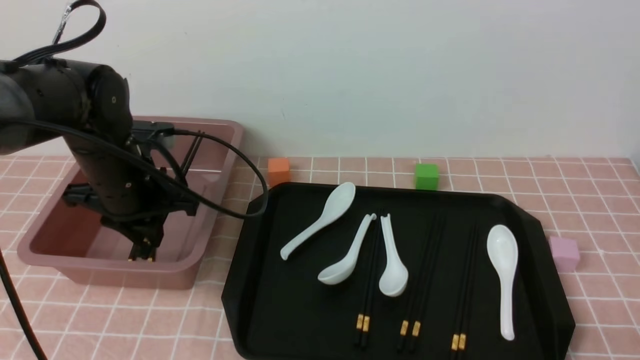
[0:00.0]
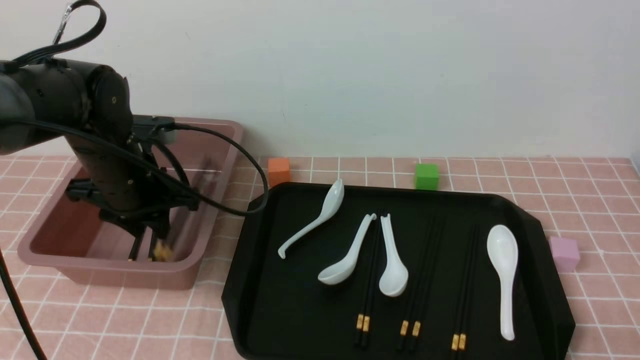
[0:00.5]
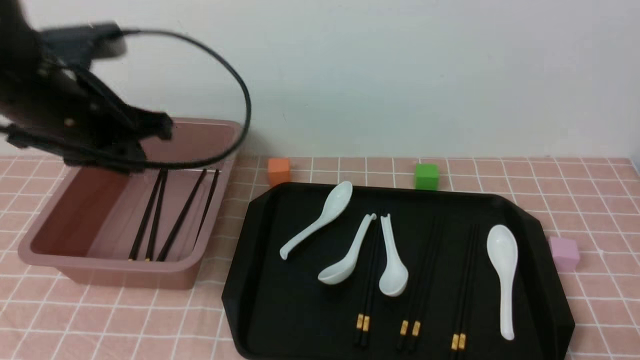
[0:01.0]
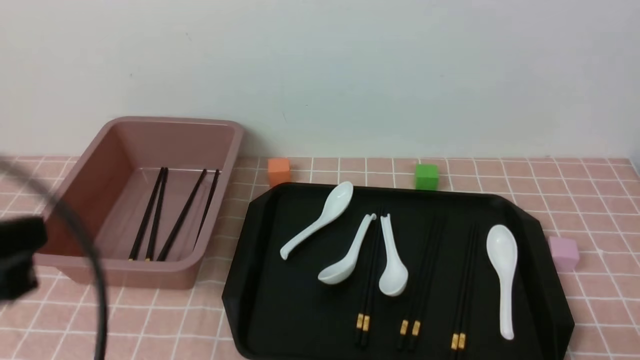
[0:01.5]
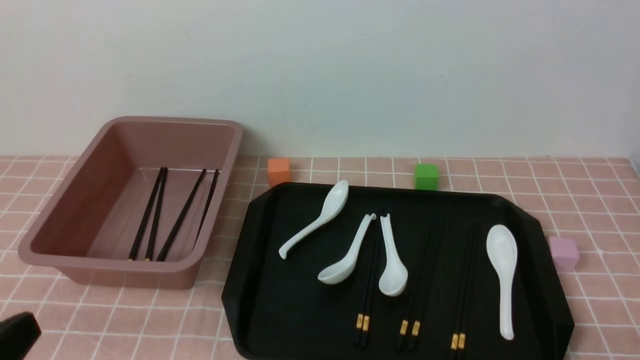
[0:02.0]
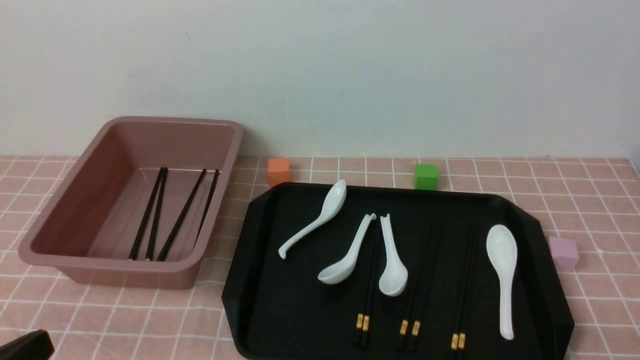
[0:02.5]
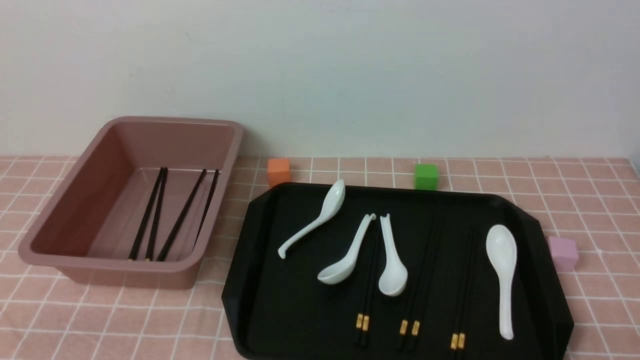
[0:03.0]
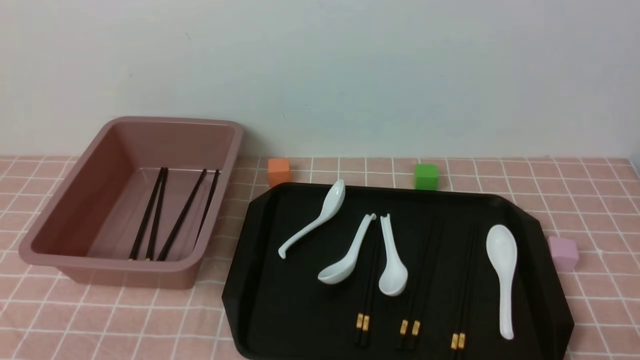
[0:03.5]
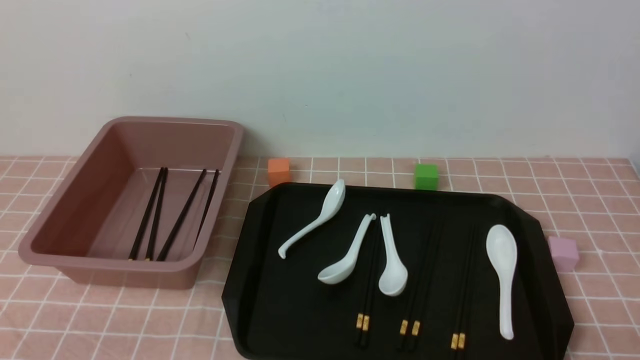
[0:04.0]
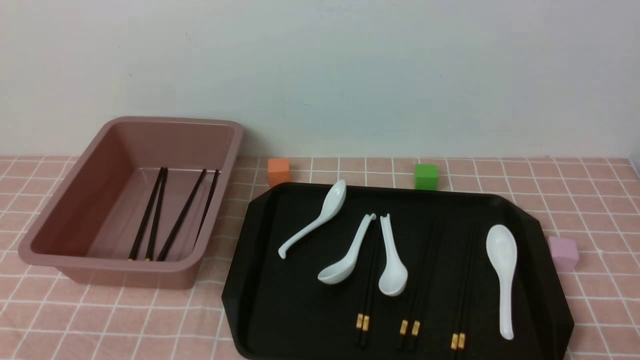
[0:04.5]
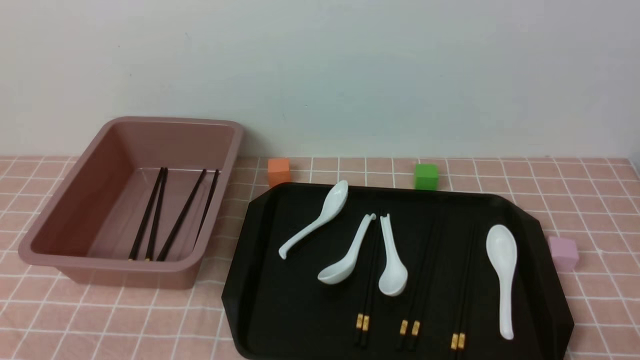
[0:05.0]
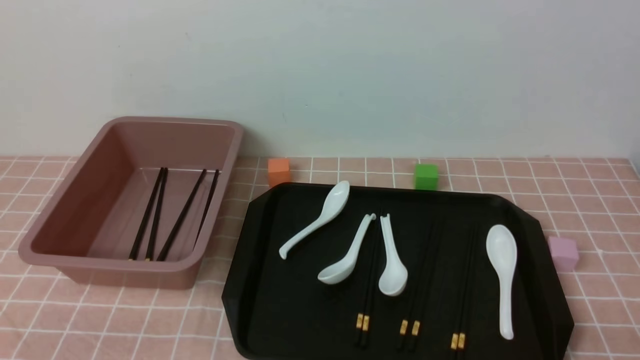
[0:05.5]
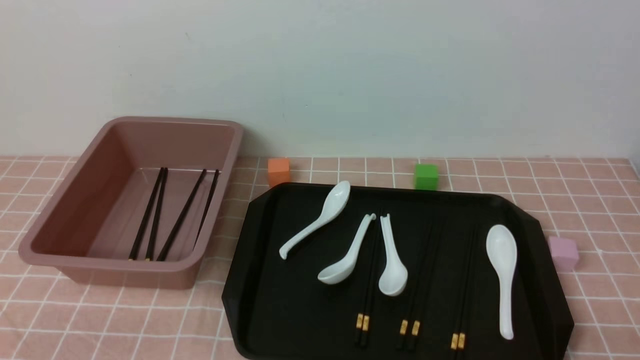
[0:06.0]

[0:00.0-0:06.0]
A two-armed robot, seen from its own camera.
0:00.0 to 0:02.0: The left gripper shifts roughly 30 cm backward, and closes.
0:02.0 to 0:04.0: The left gripper is displaced downward by about 10 cm.
0:04.0 to 0:06.0: Both grippers stay about where they are.

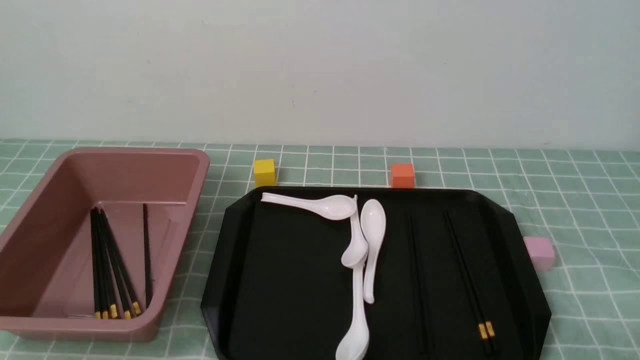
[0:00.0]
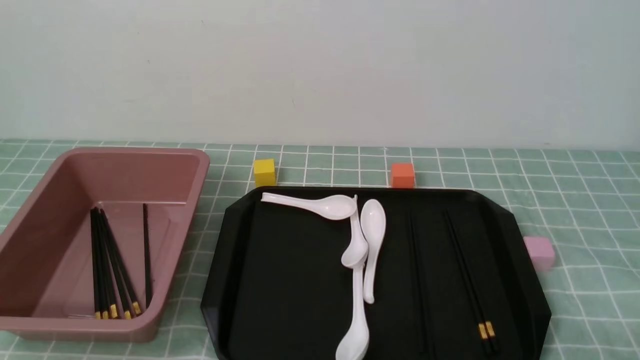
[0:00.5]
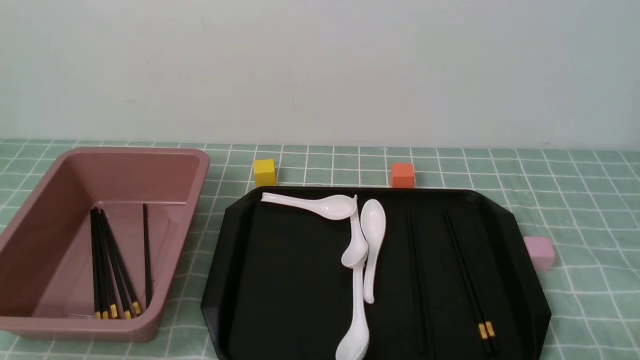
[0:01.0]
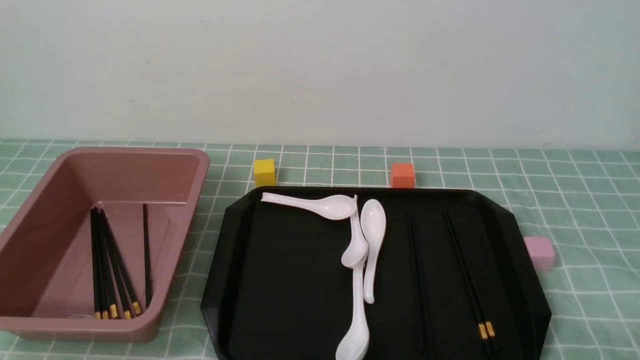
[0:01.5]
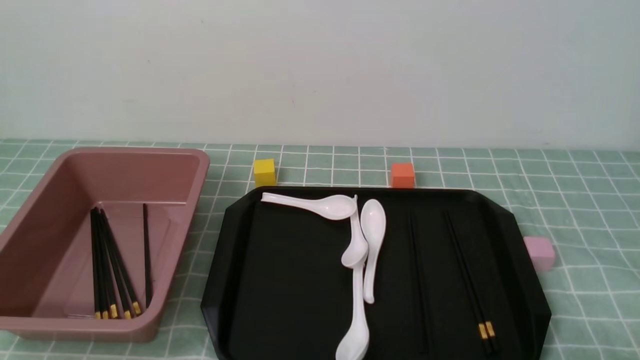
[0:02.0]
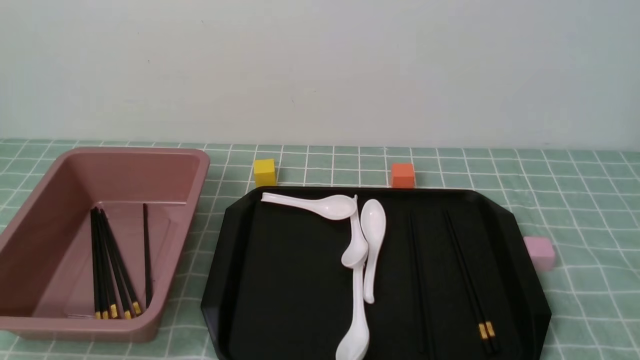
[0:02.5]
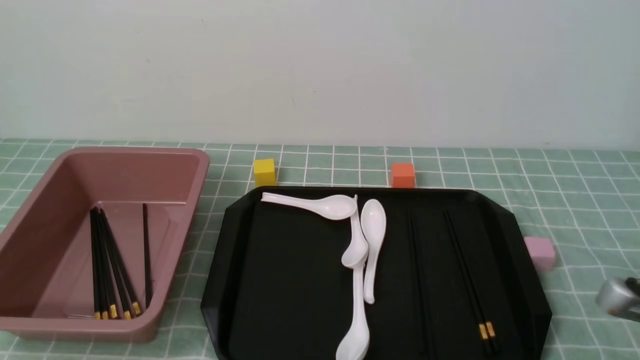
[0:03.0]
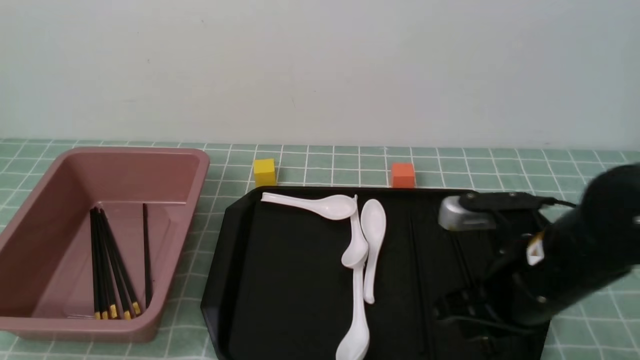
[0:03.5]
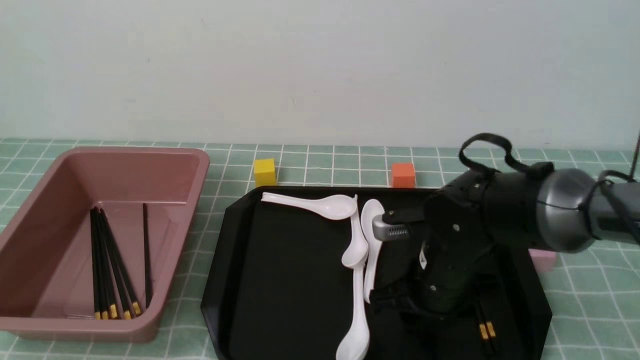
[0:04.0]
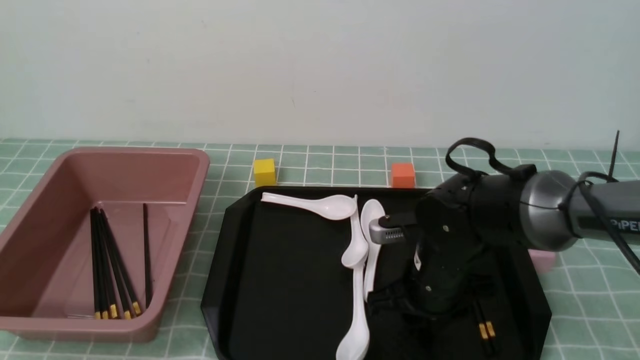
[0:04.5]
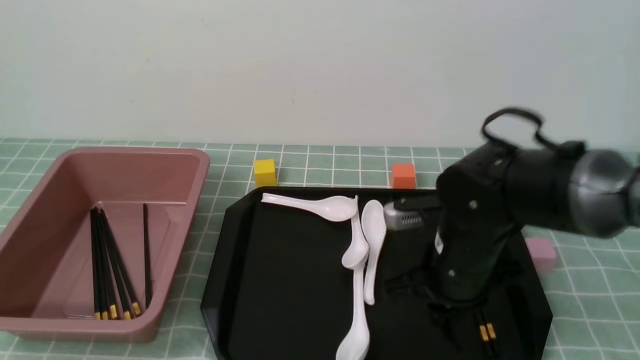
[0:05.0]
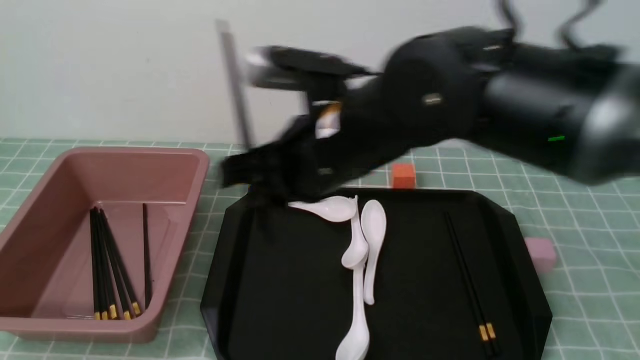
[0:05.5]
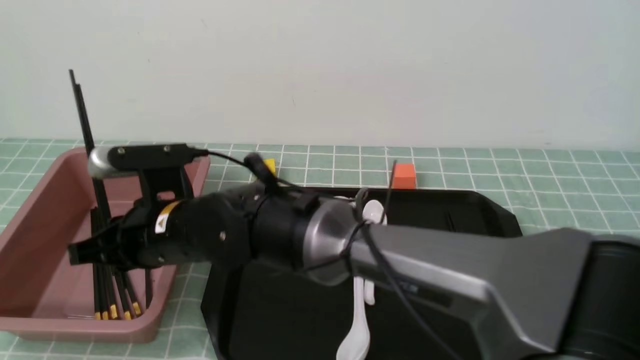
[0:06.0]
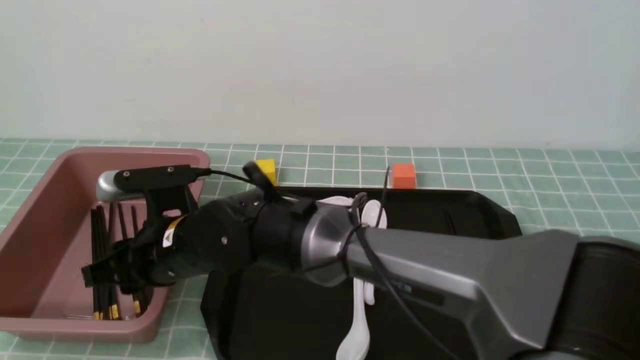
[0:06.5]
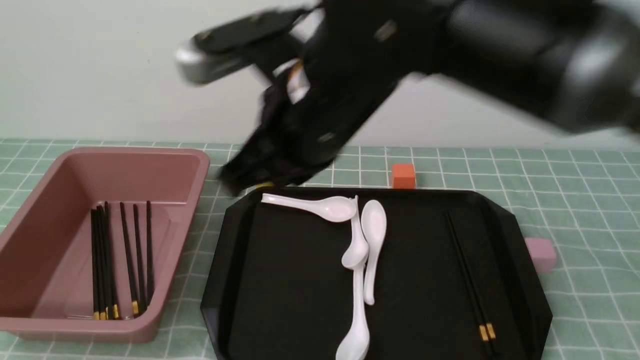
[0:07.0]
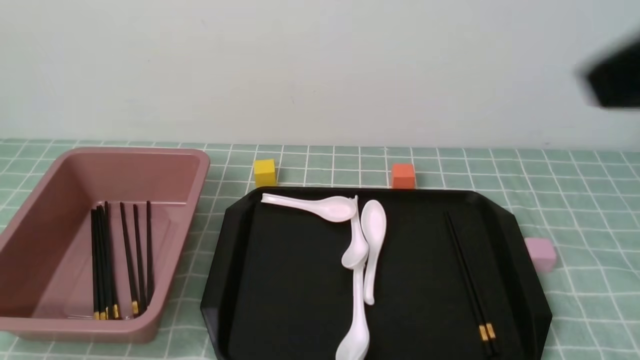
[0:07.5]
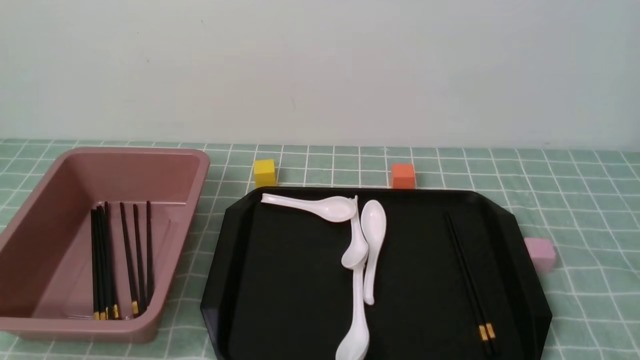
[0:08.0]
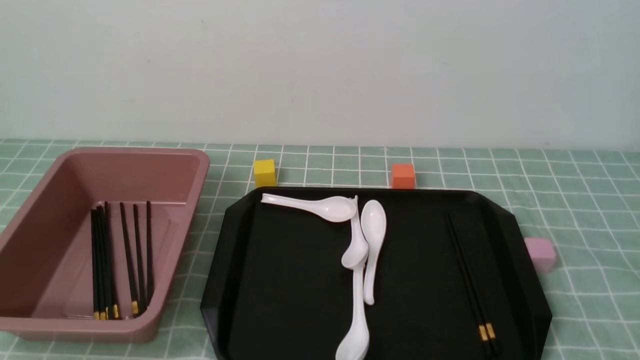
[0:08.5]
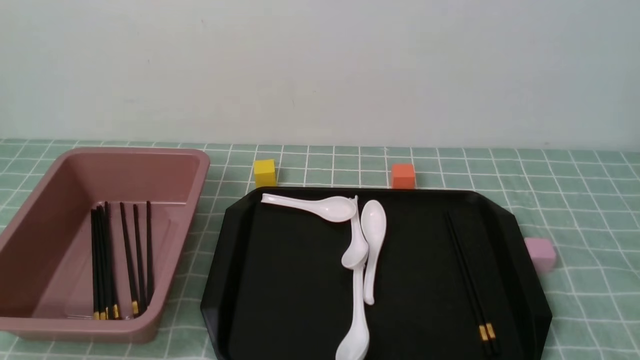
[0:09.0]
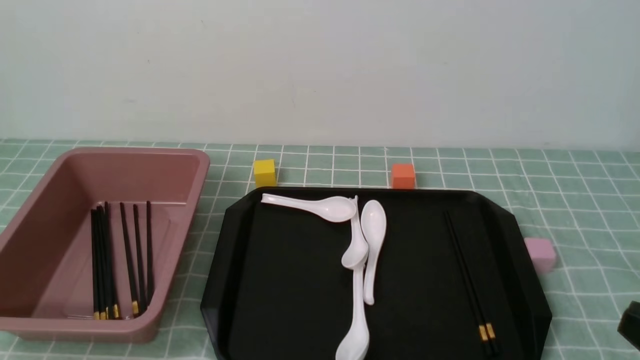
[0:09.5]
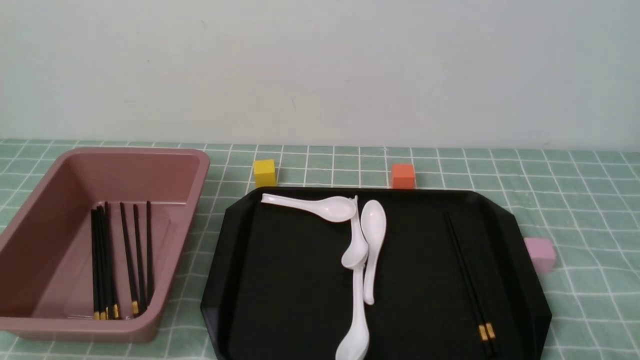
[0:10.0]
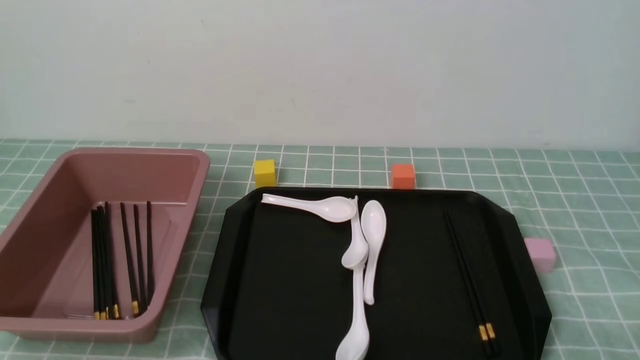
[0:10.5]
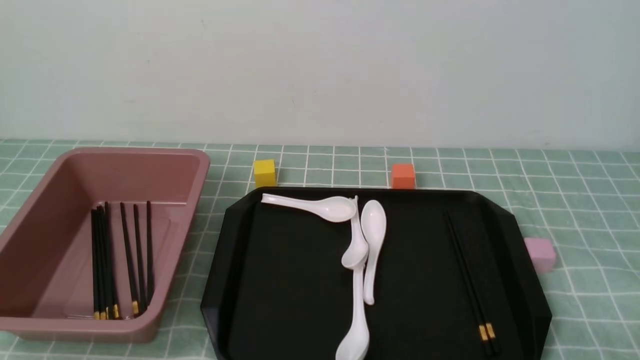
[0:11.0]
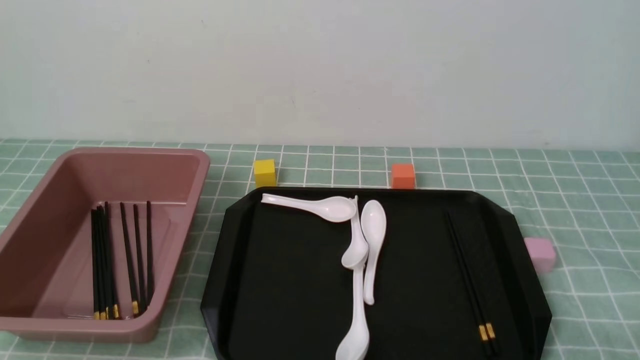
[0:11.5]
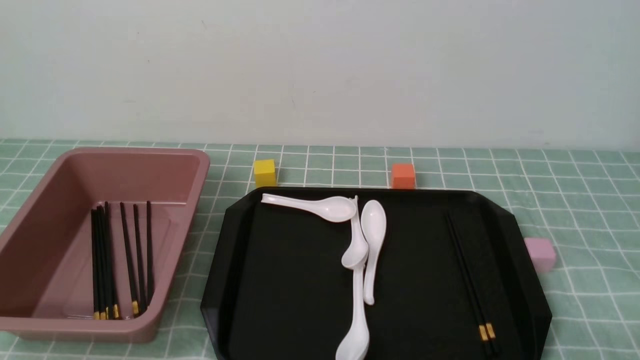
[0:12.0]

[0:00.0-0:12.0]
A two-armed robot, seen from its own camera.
Step, 0:00.0 to 0:05.0: use the right arm to grab a pair of chopsticks.
Step, 0:05.5 to 0:06.5: use the right arm to put the chopsticks into the lunch box.
0:02.0 to 0:04.0: The right gripper goes approximately 30 cm forward and to the left, and closes and opens again.
0:04.0 to 0:06.0: The right gripper moves to the left, roughly 25 cm, and closes up.
0:06.0 to 0:08.0: The right gripper is displaced to the right and backward by roughly 50 cm, and closes.
